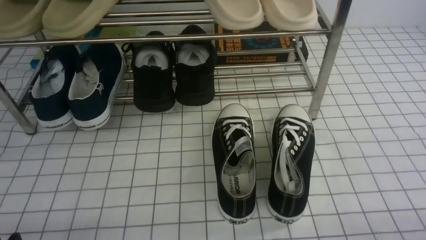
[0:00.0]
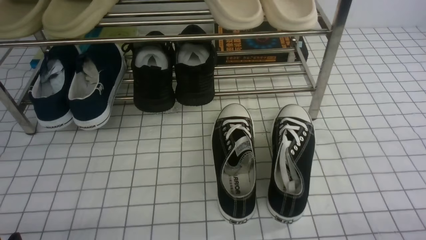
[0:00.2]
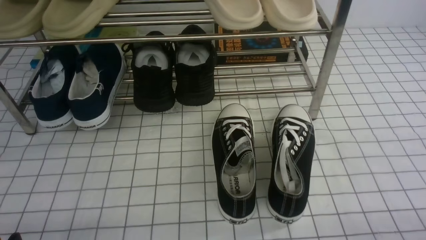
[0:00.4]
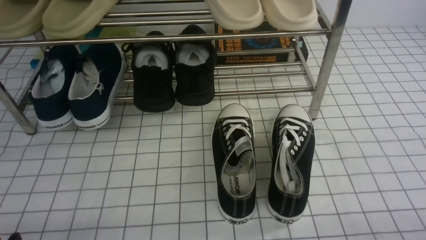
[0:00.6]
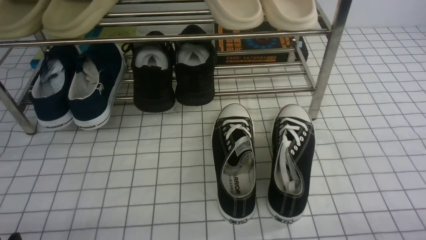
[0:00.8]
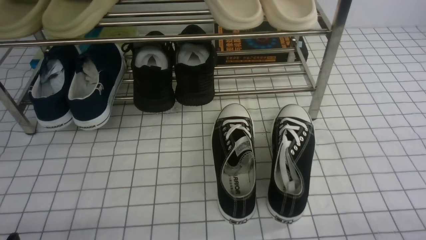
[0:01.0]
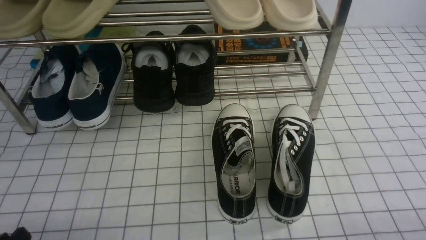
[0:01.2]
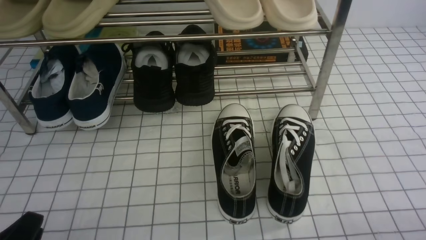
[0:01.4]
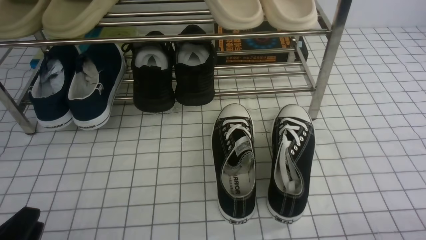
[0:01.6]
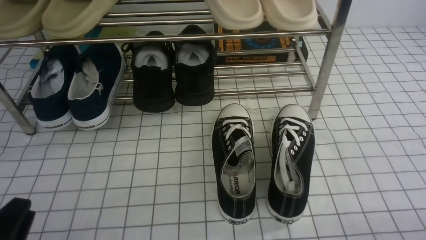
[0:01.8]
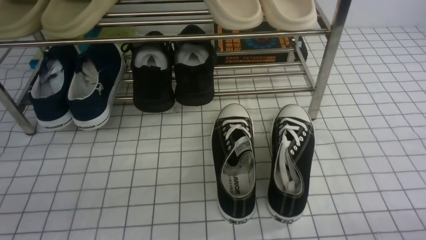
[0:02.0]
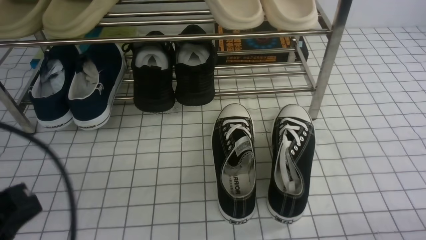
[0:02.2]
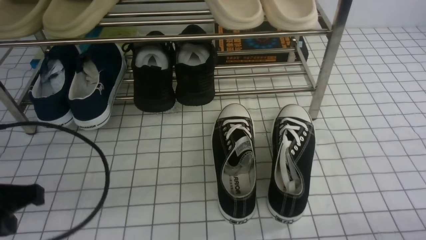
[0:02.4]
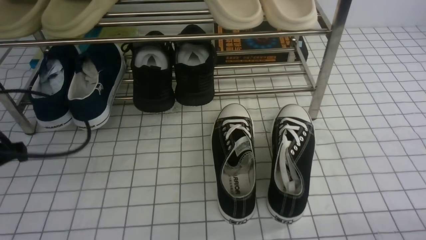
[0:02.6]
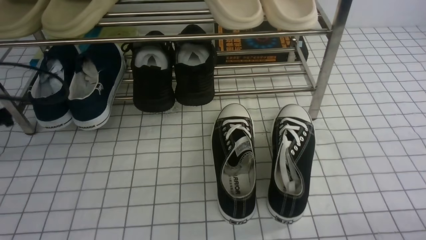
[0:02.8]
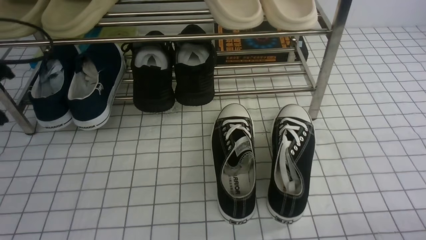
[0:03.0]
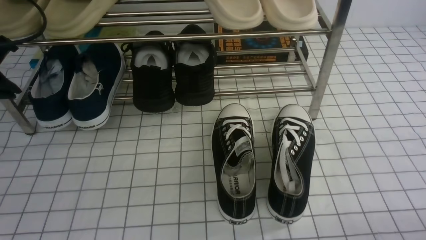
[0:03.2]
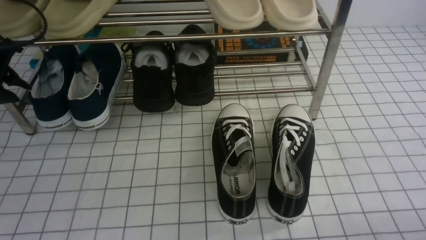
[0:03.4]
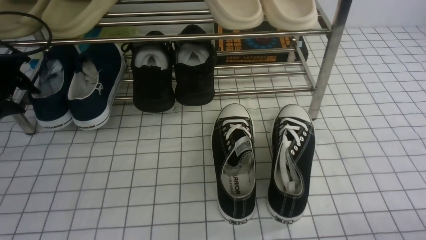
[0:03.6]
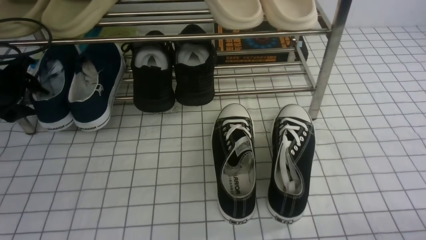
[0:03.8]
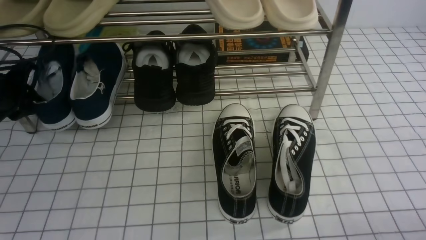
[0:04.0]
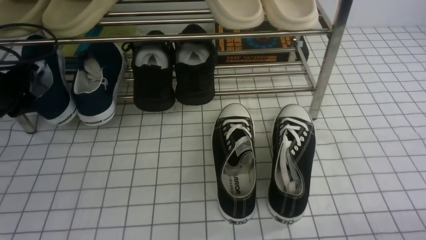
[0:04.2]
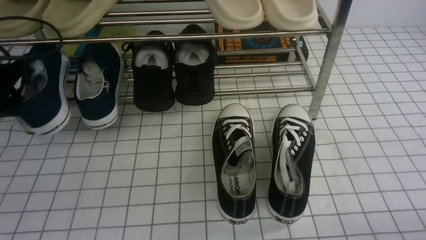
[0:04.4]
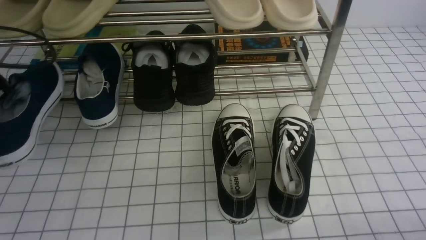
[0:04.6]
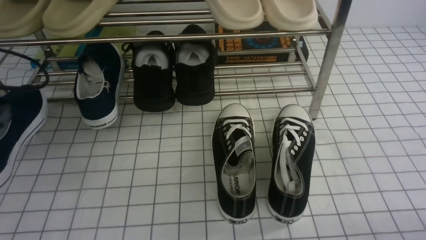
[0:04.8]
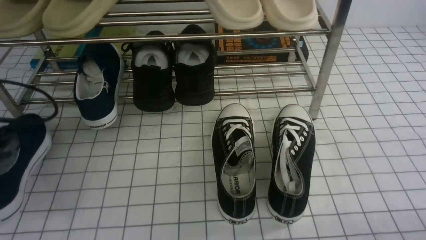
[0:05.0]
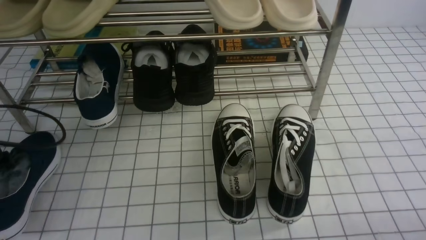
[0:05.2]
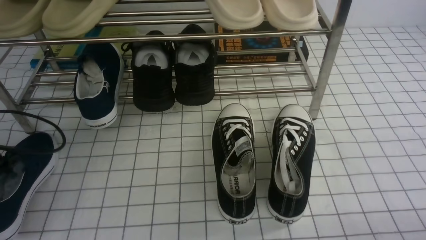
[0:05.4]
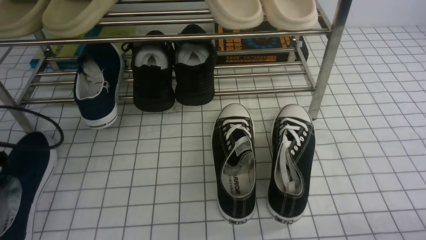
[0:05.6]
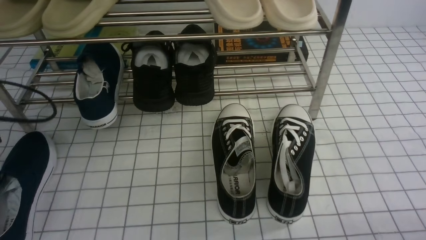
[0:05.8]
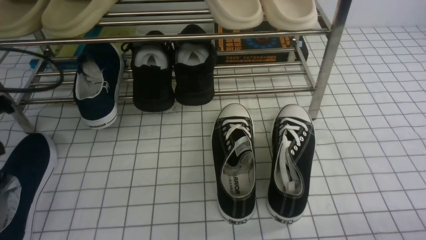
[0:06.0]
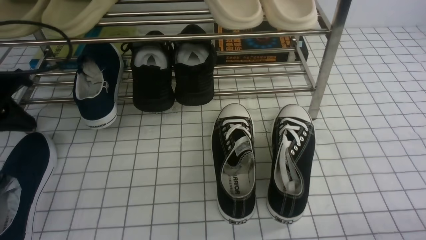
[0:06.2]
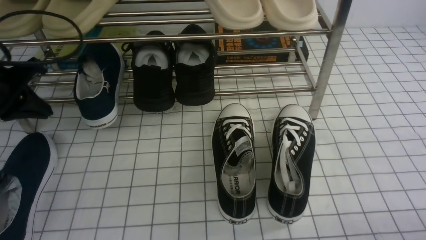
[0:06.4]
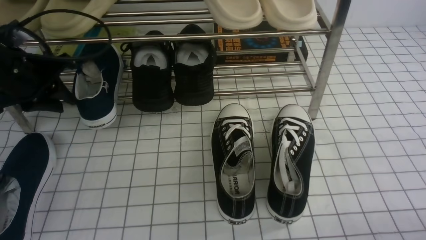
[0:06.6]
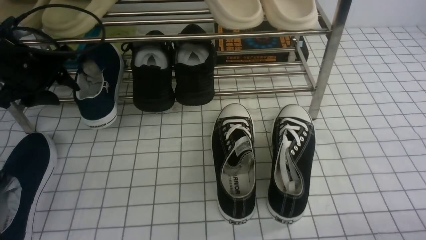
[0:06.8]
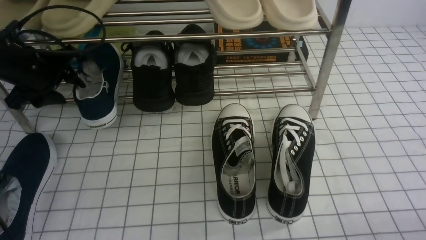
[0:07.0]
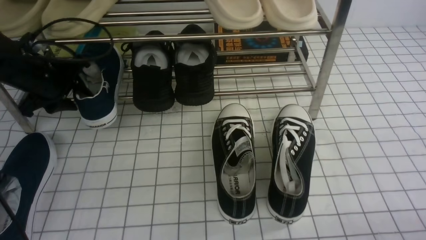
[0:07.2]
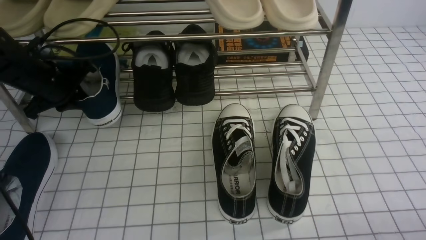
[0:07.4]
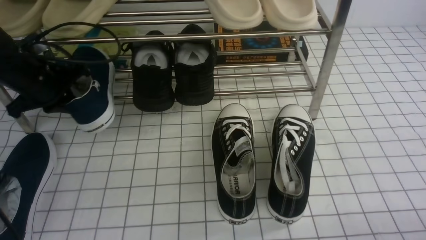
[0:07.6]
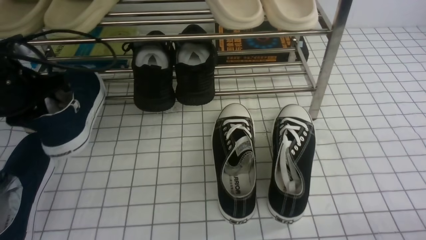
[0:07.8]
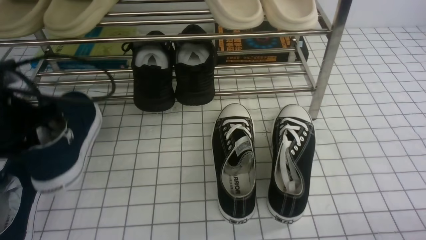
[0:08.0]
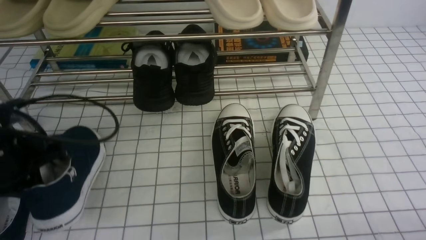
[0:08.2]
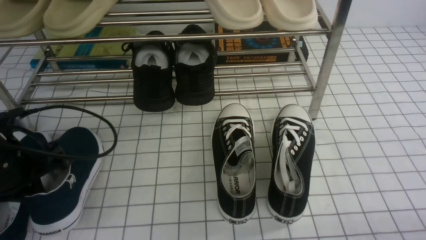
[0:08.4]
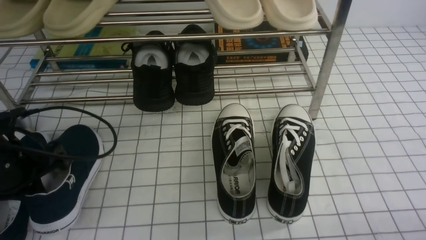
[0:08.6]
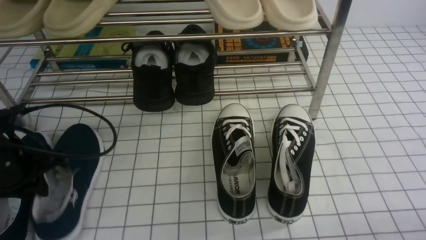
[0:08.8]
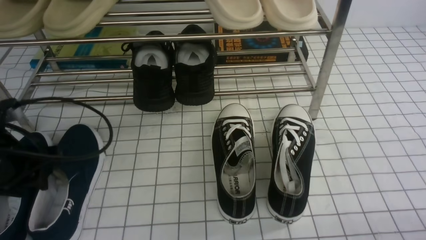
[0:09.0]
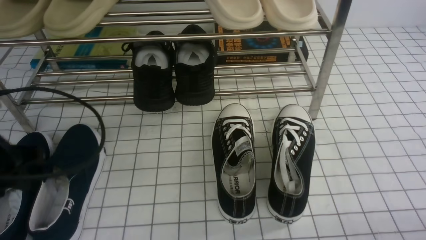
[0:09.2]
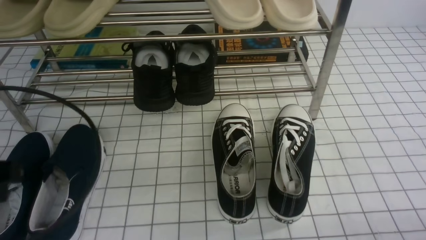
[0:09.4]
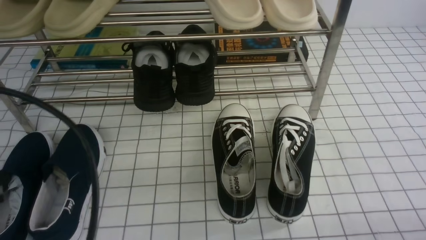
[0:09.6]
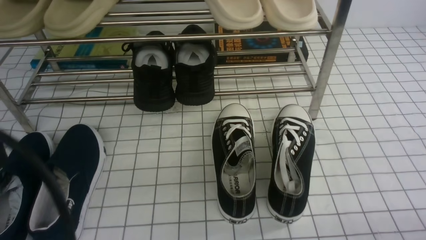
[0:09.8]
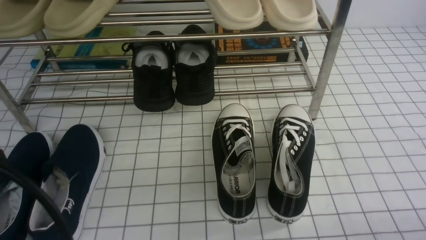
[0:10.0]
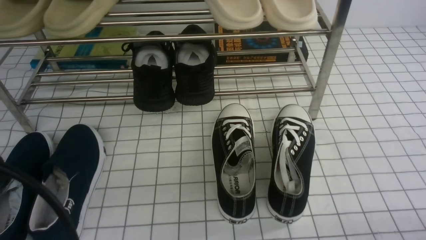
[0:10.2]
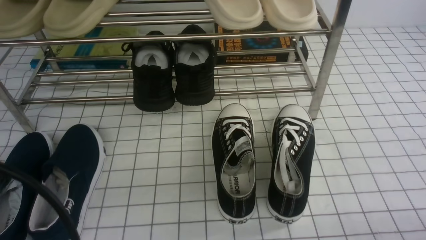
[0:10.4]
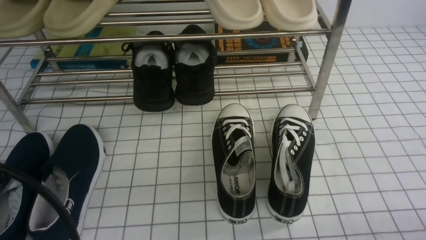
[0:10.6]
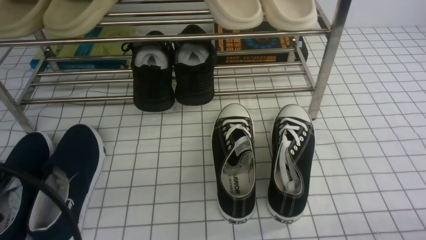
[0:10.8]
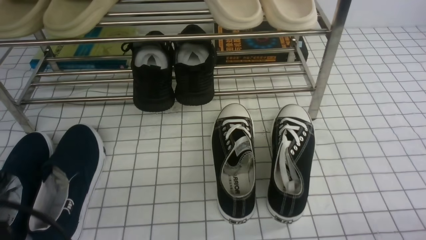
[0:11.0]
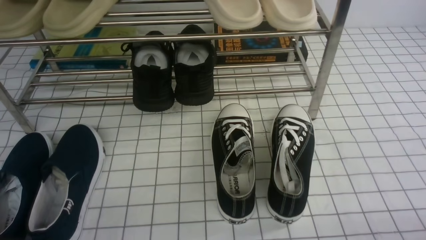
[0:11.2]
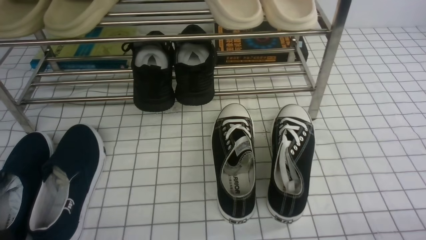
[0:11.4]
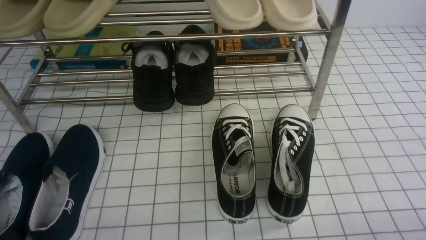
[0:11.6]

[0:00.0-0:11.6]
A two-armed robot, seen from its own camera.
Step, 0:00.0 to 0:04.0: use the left arm to clamp a shoe on the left side of the shoe rack.
Step, 0:04.2 to 0:05.8: Use your left arm to remove the clamped shoe from the shoe rack and put it down.
Step, 0:06.0 to 0:07.4: use the left arm to clamp a shoe on the left side of the shoe rack.
Step, 0:07.6 to 0:09.2: Use your left arm to remove the clamped shoe from the shoe rack and put it down.
0:01.4 to 0:02.8: The left gripper heads forward and upward, covering some 25 cm, and closes.
0:02.8 to 0:04.4: The left gripper heads forward, covering roughly 5 cm, and opens, then closes once more.
0:04.4 to 0:05.8: The left gripper travels backward by about 10 cm, and opens up.
0:05.8 to 0:07.2: The left gripper shifts roughly 15 cm forward and to the right, and closes, then opens again.
0:07.2 to 0:08.8: The left gripper moves backward, some 15 cm, and closes, then reopens.
0:08.8 to 0:10.2: The left gripper moves backward and upward, roughly 25 cm, and closes up.
0:10.2 to 0:11.6: The left gripper shifts about 20 cm downward.

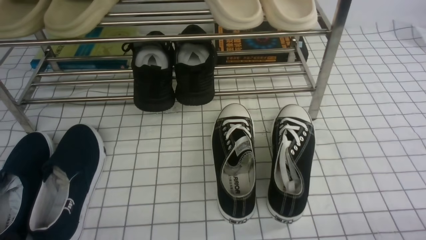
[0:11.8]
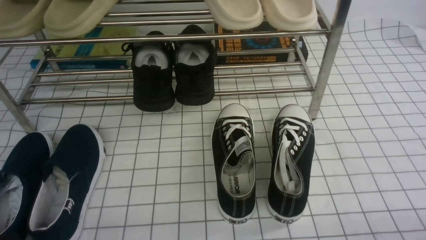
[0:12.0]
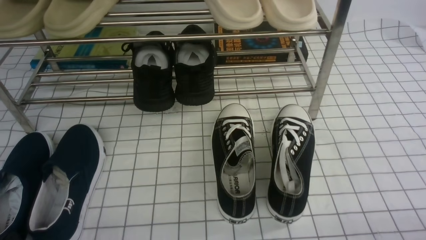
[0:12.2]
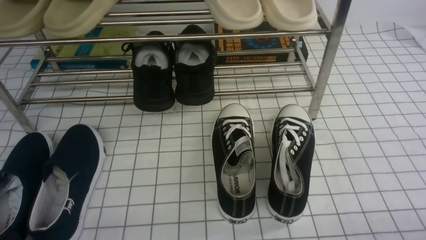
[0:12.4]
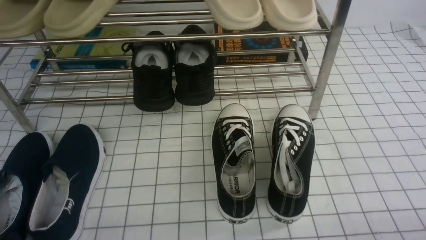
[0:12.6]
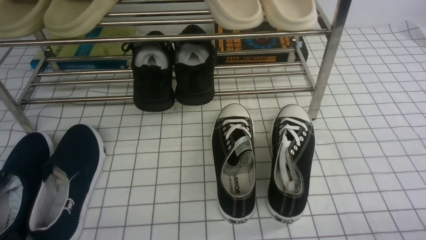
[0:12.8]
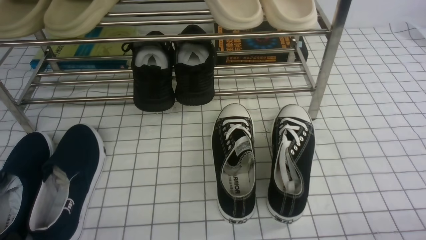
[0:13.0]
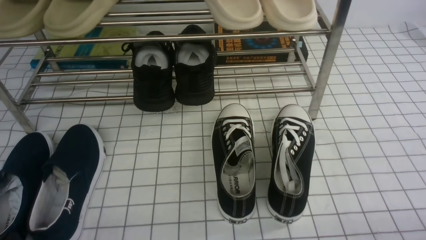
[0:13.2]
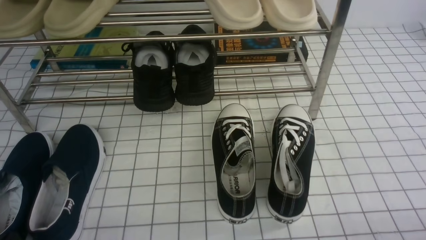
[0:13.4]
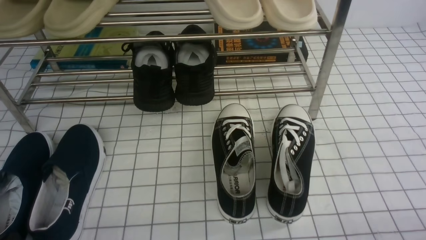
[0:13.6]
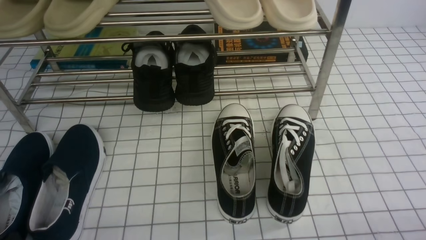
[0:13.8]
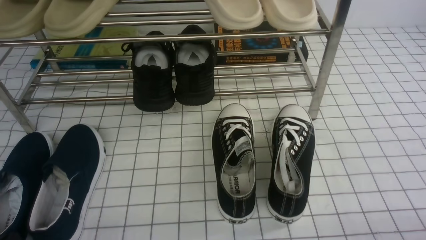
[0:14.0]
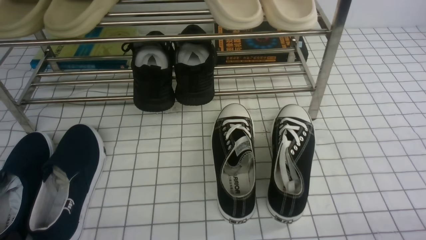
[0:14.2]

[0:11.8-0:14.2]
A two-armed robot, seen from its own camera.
0:11.8 to 0:14.2: Neither gripper changes place.

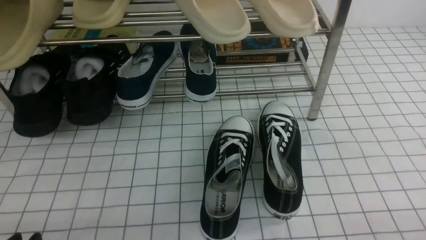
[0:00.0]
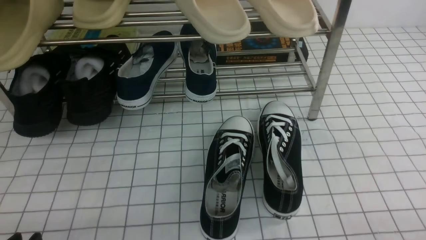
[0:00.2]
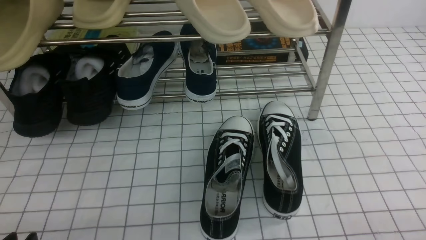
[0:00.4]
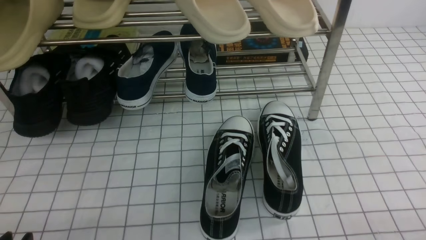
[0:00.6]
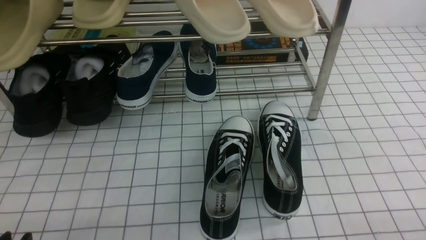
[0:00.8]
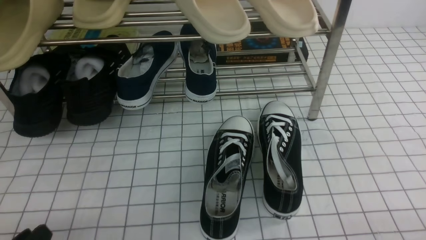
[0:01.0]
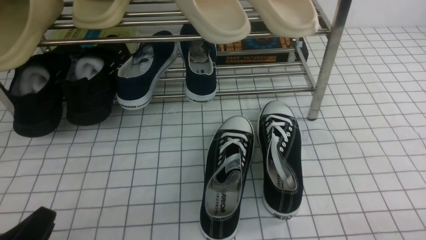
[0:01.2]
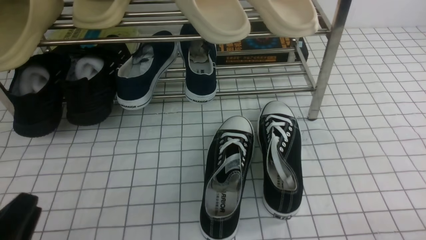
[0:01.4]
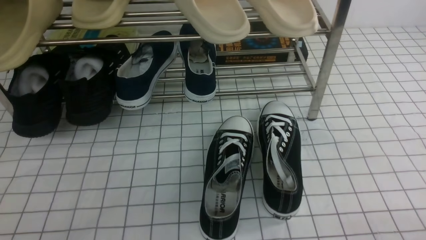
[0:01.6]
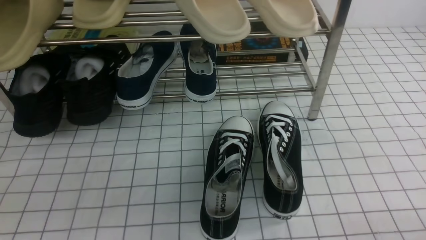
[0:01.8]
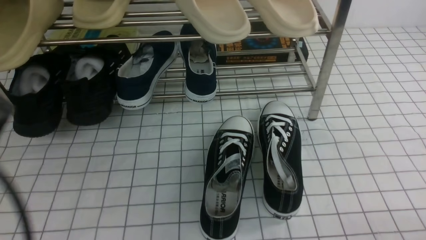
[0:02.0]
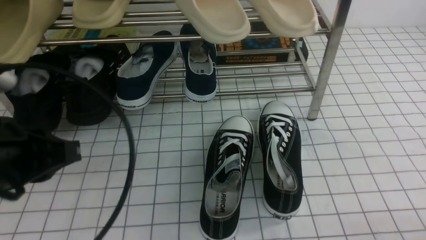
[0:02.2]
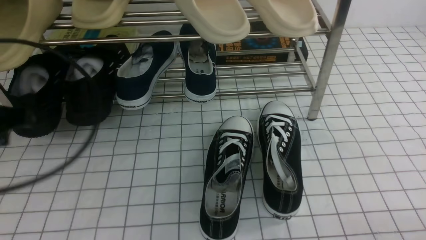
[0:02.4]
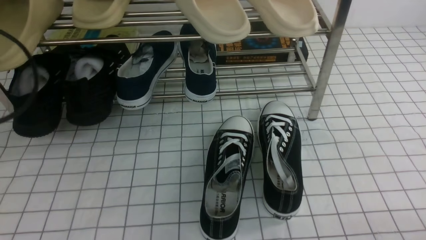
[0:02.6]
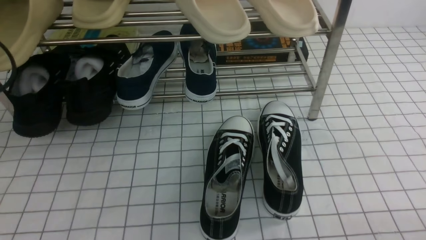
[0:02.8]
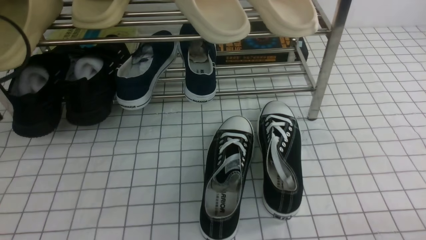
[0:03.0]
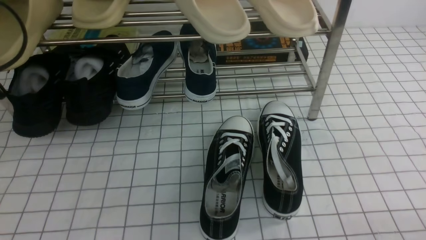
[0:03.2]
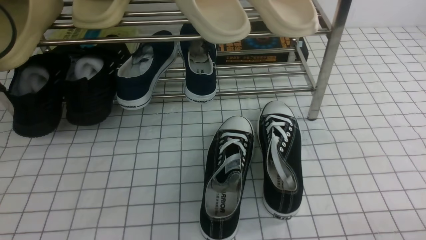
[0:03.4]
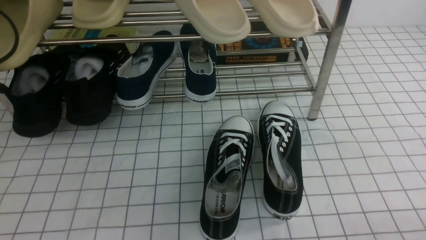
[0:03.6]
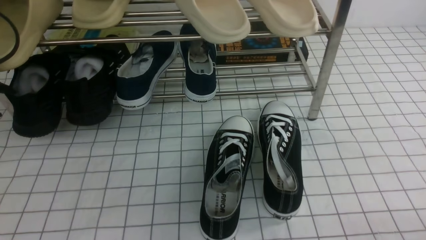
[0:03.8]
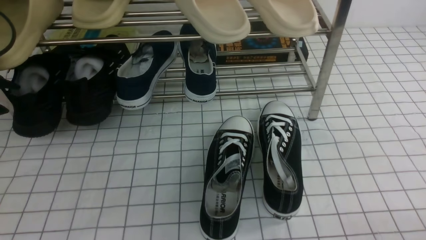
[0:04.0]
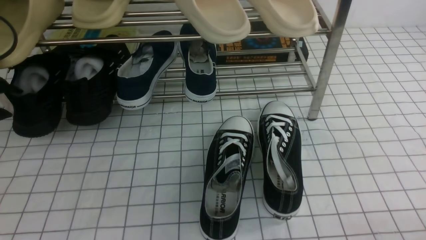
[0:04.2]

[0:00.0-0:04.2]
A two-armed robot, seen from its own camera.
0:01.4 to 0:02.8: The left gripper goes roughly 25 cm forward, upward and to the left, and closes its fingers.
0:02.8 to 0:04.2: The left gripper goes about 10 cm forward and downward, and opens.
